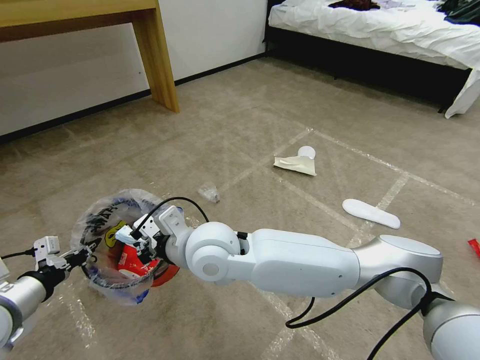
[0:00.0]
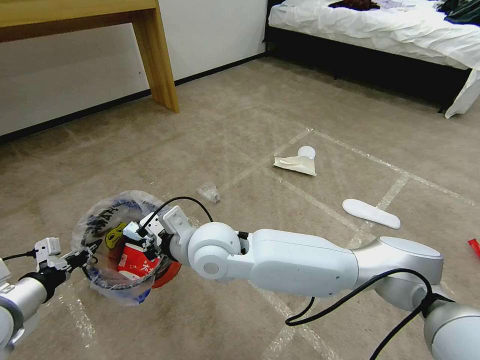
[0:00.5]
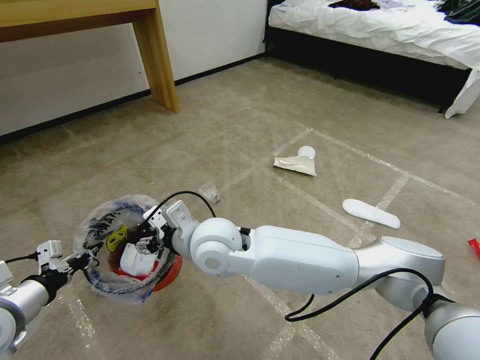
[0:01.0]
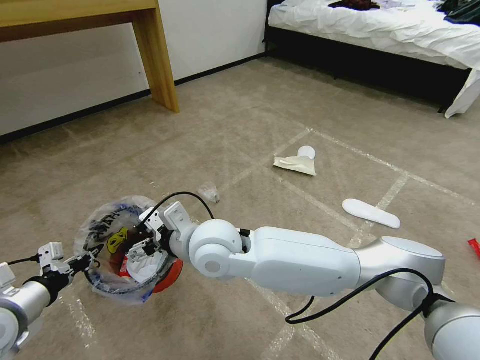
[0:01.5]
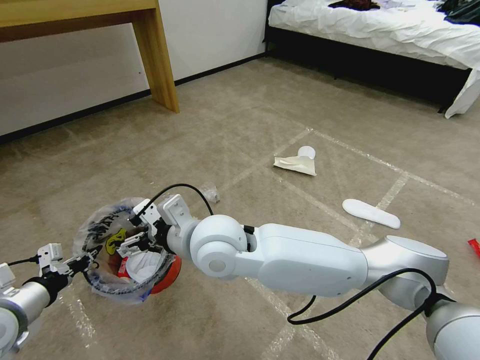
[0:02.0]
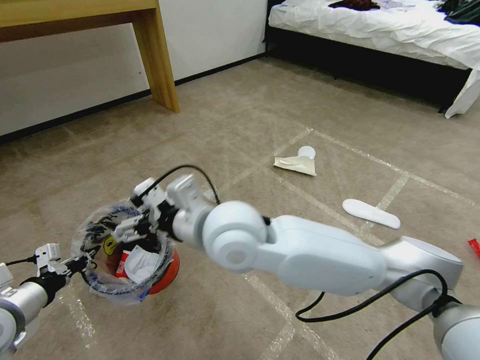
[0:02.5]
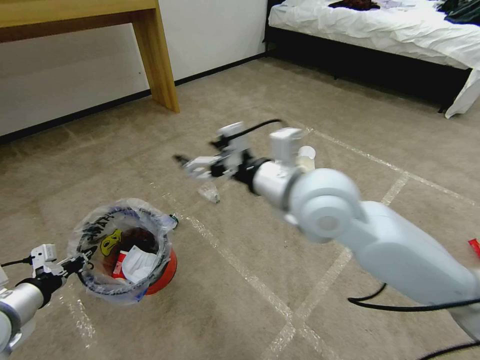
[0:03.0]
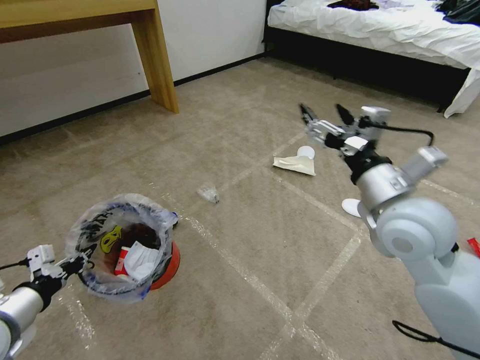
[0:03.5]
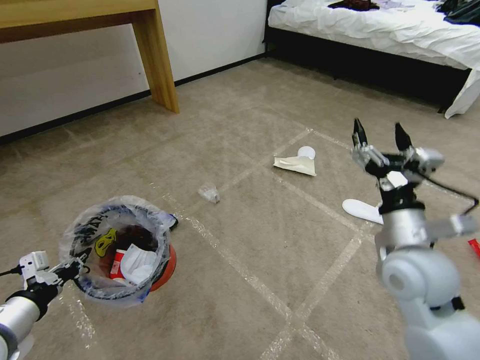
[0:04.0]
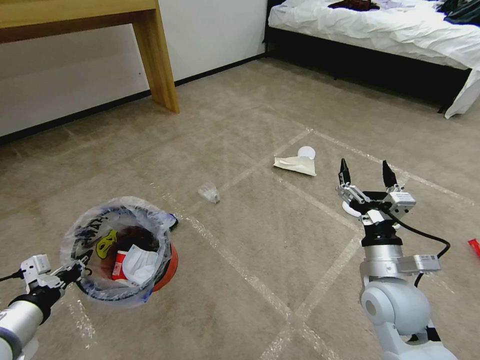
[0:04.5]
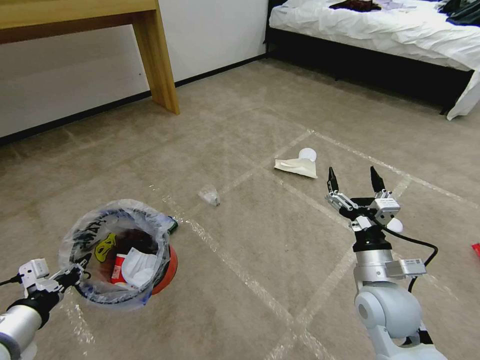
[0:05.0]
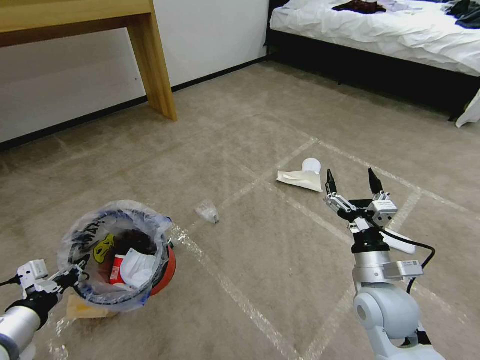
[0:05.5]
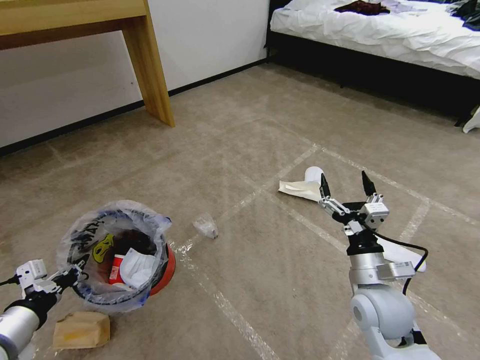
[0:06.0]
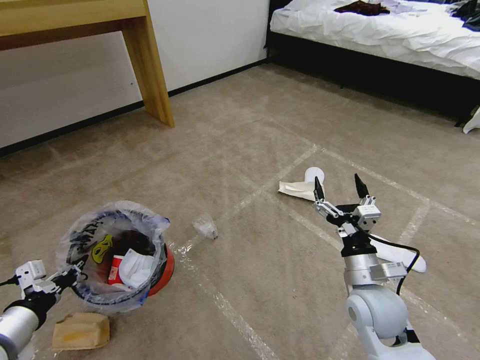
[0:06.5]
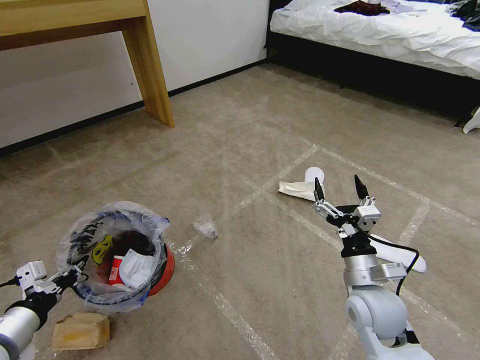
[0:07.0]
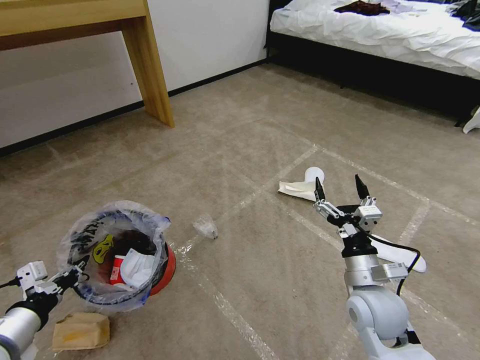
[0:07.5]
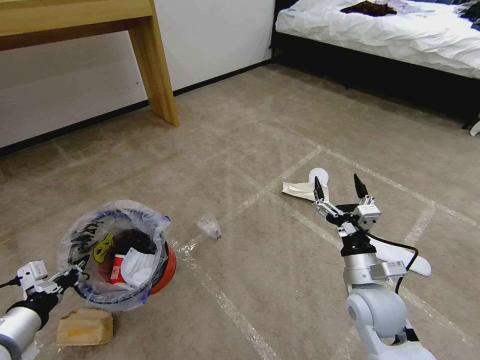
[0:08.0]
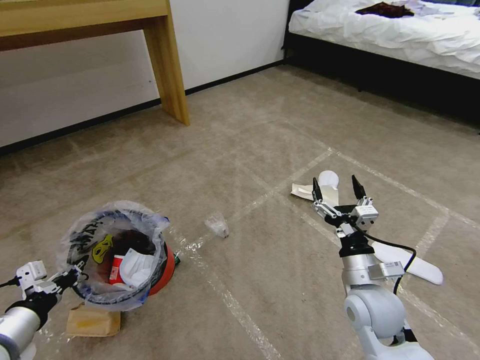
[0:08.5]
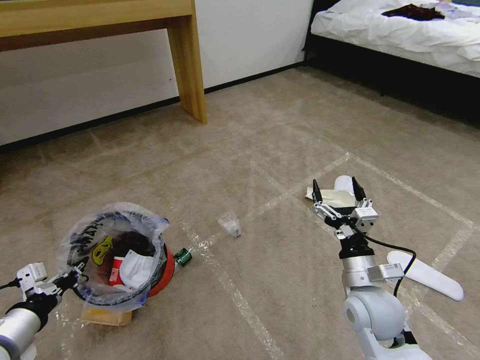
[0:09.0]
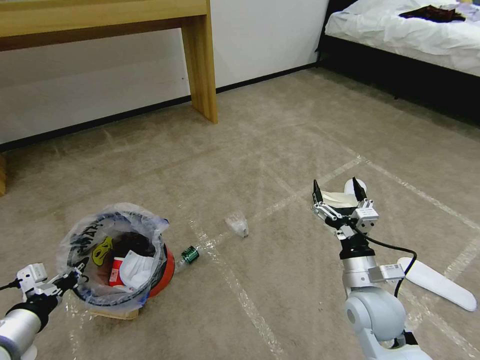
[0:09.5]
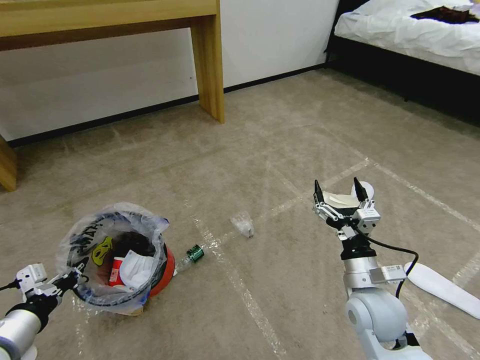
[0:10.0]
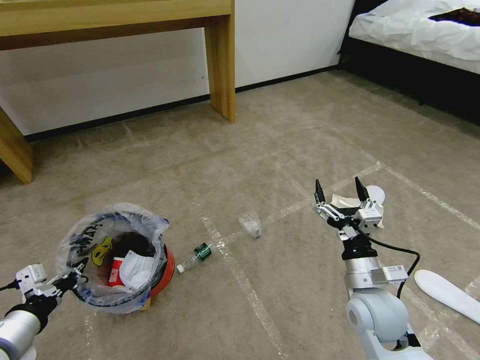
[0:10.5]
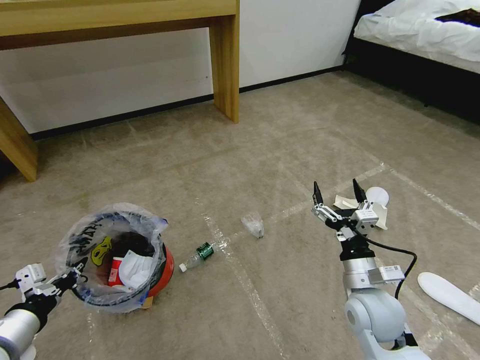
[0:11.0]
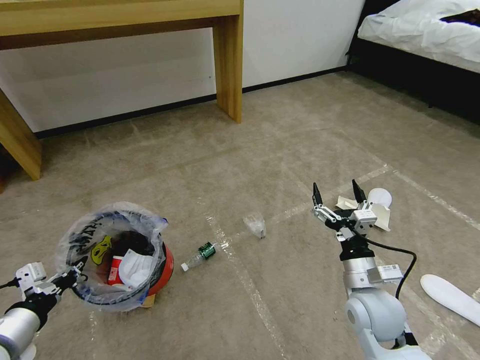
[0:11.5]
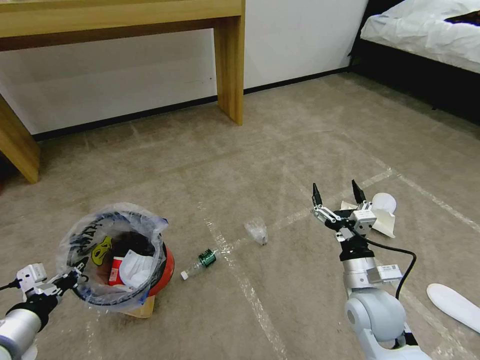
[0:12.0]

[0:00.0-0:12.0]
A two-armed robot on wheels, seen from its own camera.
Task of the whole recording: Pick up the trash bin and place the garbage on the floor into it.
0.0 to 2.0 s: The right gripper opens up.
2.0 to 4.0 s: The right gripper heads to the right, covering about 35 cm.
4.0 to 6.0 s: The right gripper moves downward, roughly 10 cm.
6.0 to 8.0 s: Neither gripper changes place.
10.0 to 12.0 s: Neither gripper changes place.

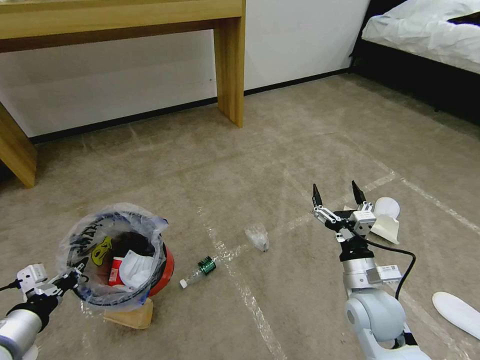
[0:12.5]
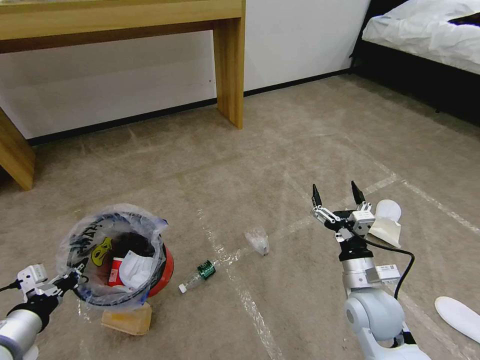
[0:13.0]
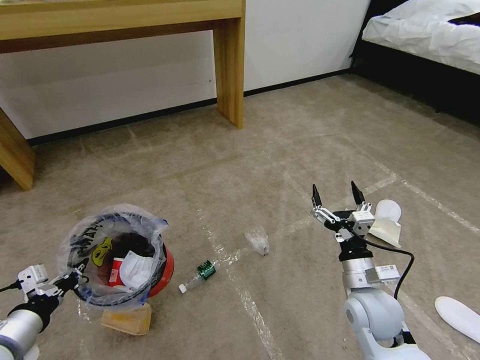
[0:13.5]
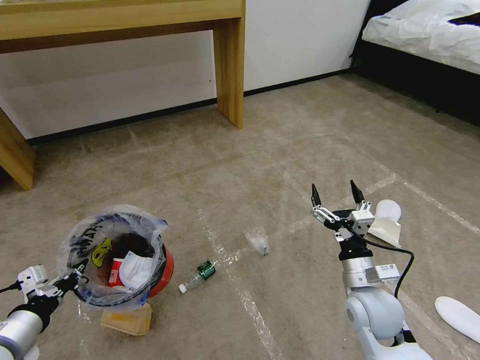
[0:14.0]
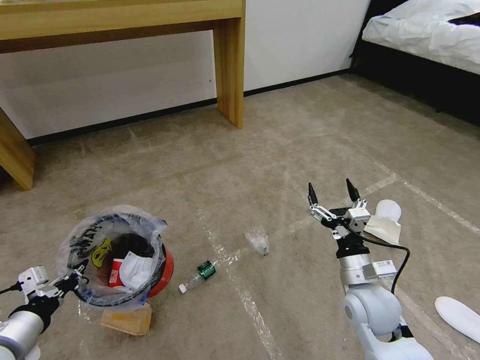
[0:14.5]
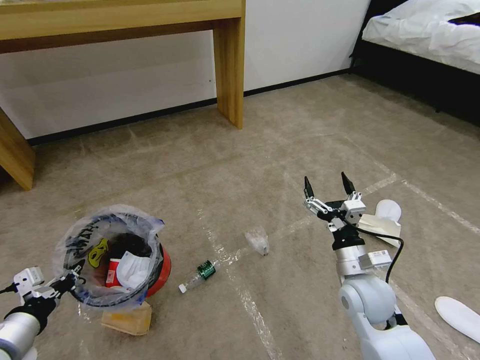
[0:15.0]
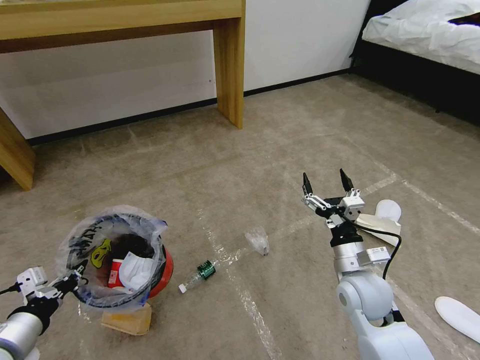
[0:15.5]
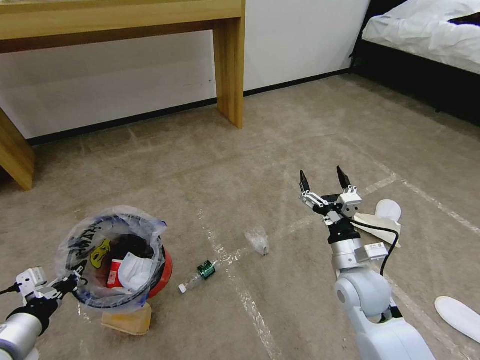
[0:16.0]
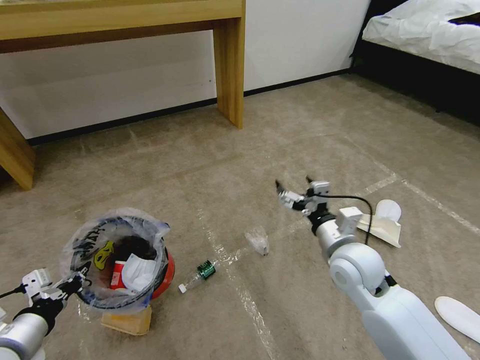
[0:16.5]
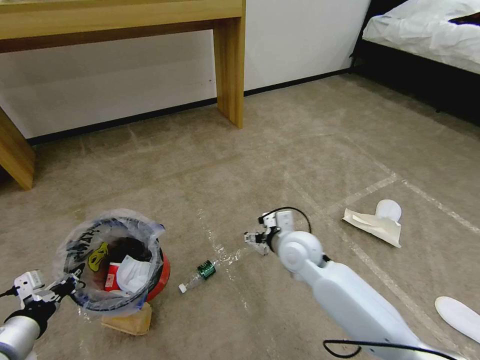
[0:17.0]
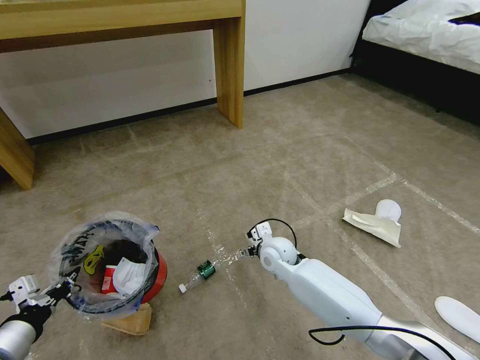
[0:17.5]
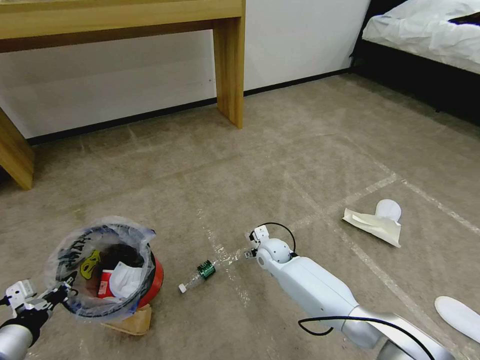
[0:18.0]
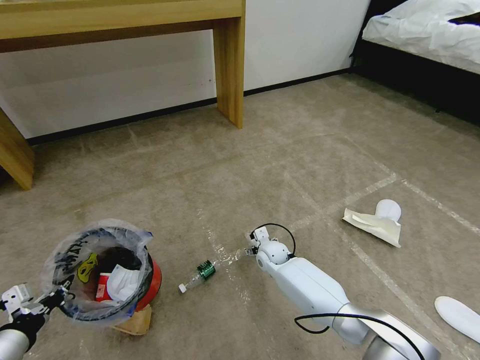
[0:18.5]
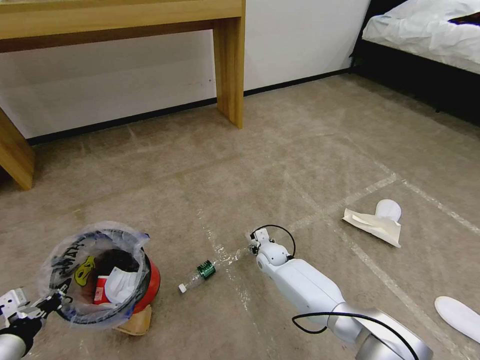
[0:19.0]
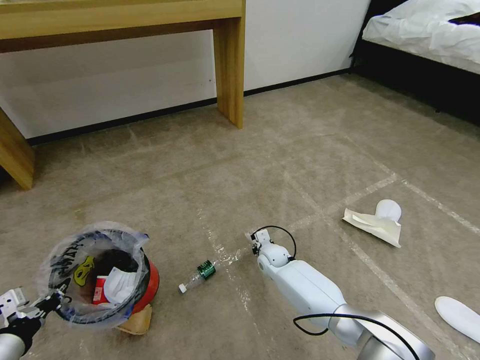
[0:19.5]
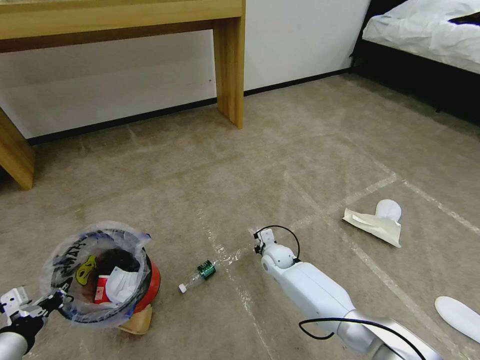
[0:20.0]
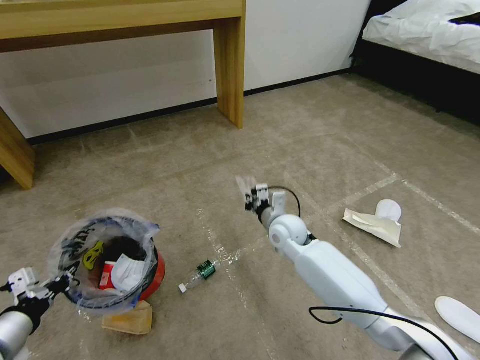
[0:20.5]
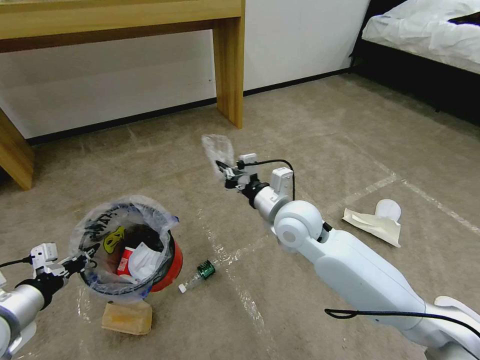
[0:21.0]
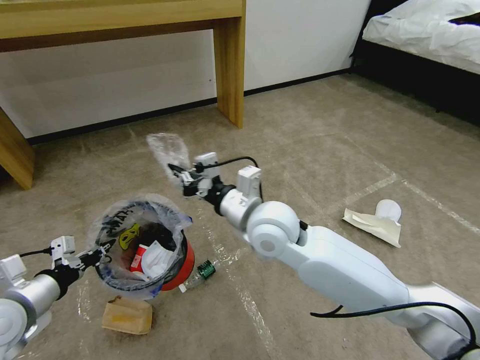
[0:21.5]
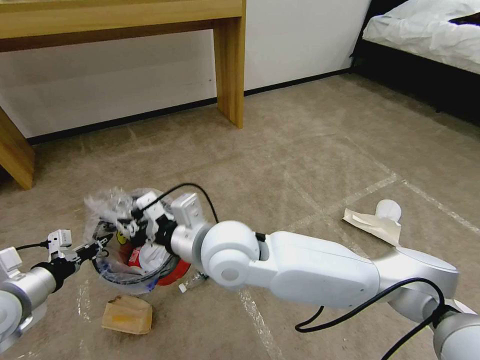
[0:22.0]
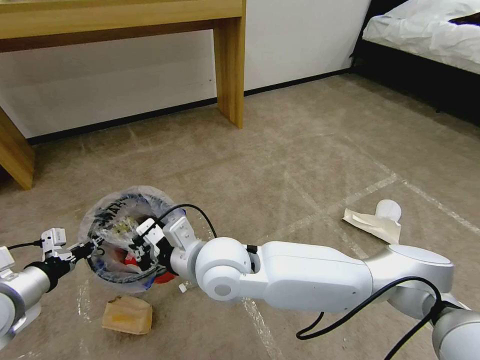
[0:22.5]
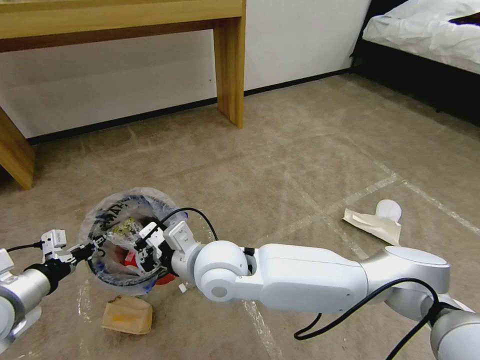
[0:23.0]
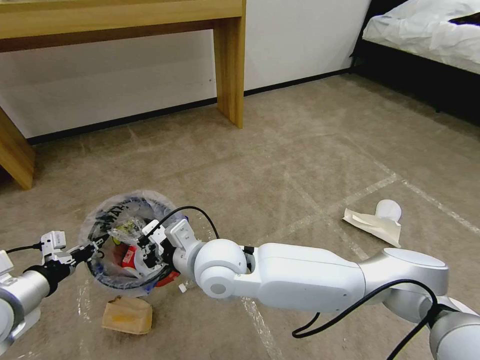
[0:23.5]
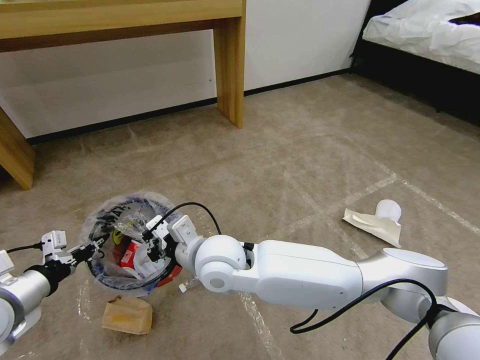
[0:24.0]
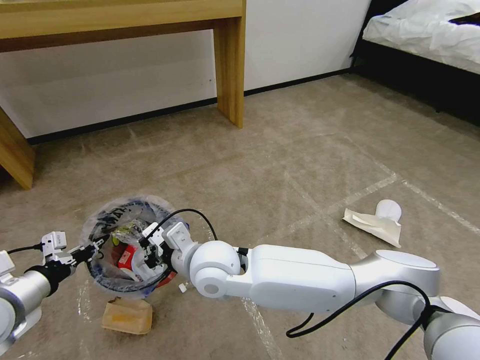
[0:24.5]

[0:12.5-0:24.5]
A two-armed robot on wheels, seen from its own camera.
Task of the whole recording: Pick up the trash bin and place the garbage on the floor into it.
12.5 to 14.5 s: Both grippers stay about where they are.
14.5 to 16.5 s: The right gripper is displaced upward and forward by approximately 10 cm.
16.5 to 18.5 s: The right gripper travels downward, forward and to the left by roughly 30 cm.
18.5 to 20.5 s: The right gripper travels upward by roughly 15 cm, and closes.
20.5 to 22.5 s: The left gripper heads forward, covering some 5 cm; the right gripper shifts about 25 cm backward, to the left and upward.
22.5 to 24.5 s: The grippers make only small movements.

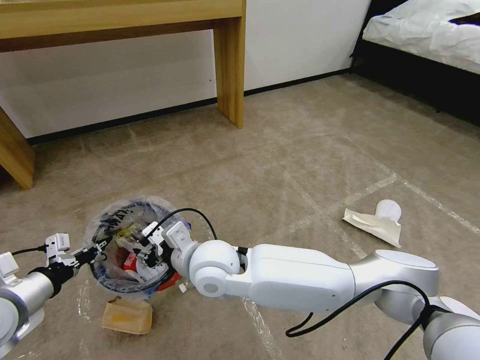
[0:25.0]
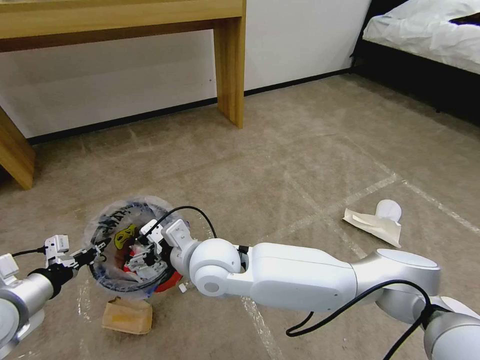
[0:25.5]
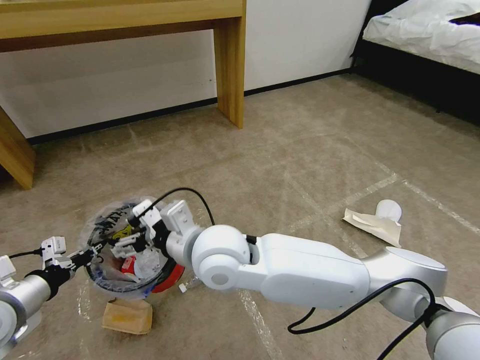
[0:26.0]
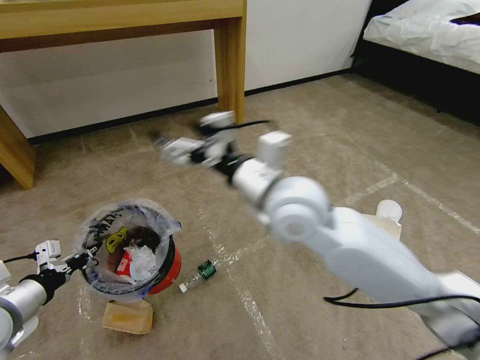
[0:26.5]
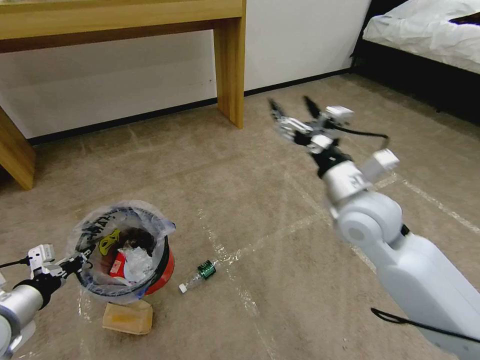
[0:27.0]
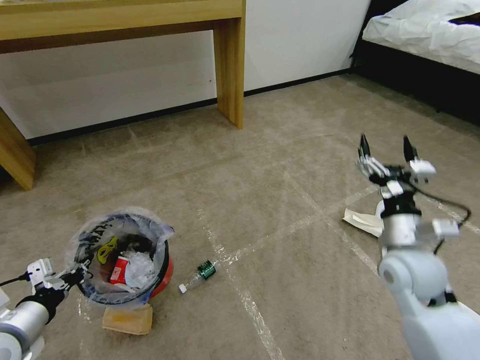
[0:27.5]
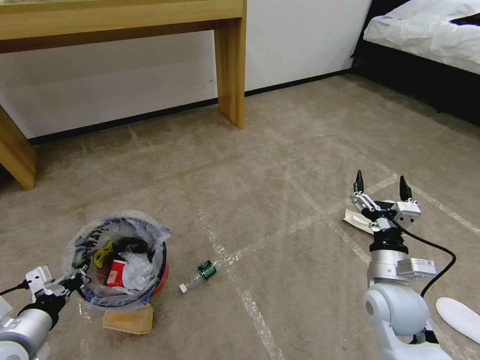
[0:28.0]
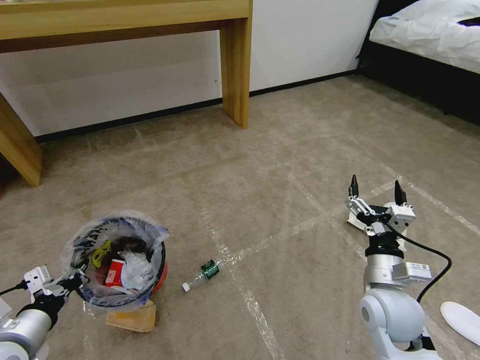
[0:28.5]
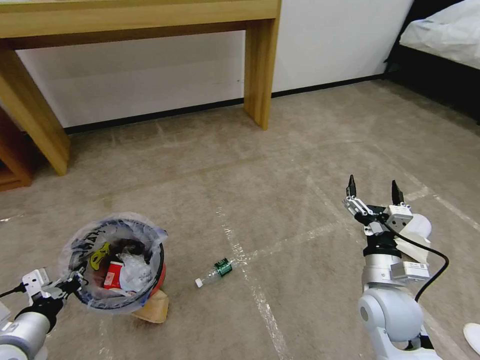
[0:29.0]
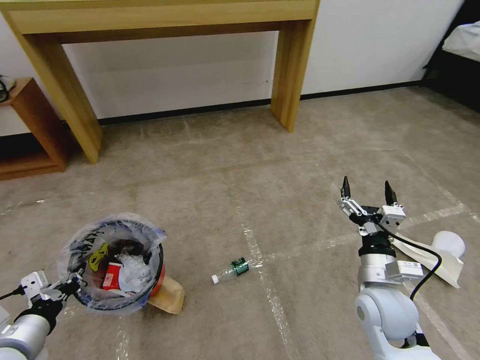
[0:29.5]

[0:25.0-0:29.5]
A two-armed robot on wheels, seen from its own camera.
Task of the whole recording: Pick up the trash bin and place the garbage on the floor into it.
25.0 to 27.0 s: The right gripper shifts approximately 30 cm to the right, and opens.
27.0 to 29.5 s: The right gripper travels downward and backward by some 20 cm. Meanwhile the left gripper changes place by some 5 cm.
